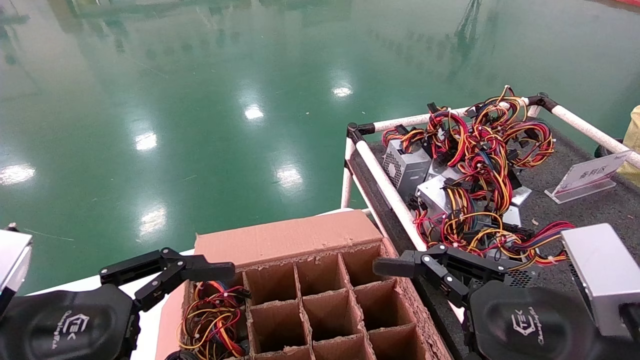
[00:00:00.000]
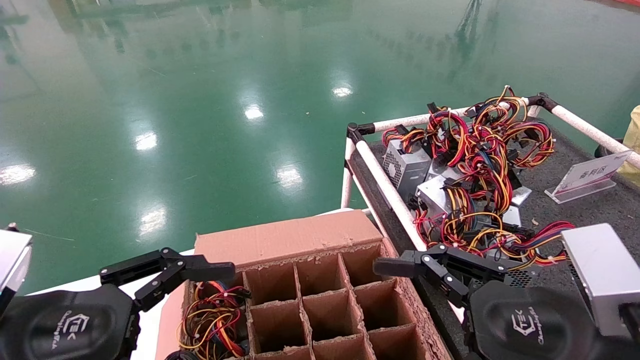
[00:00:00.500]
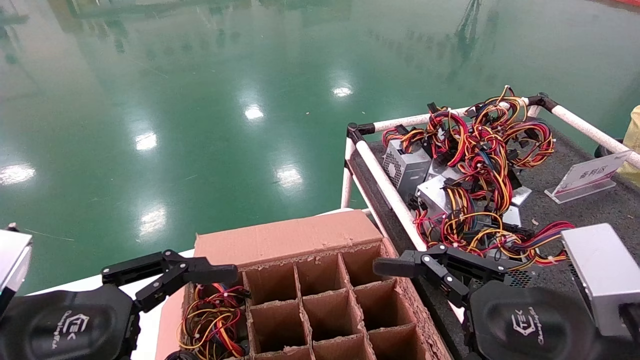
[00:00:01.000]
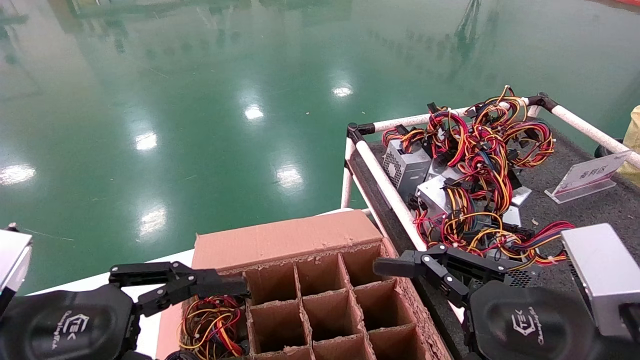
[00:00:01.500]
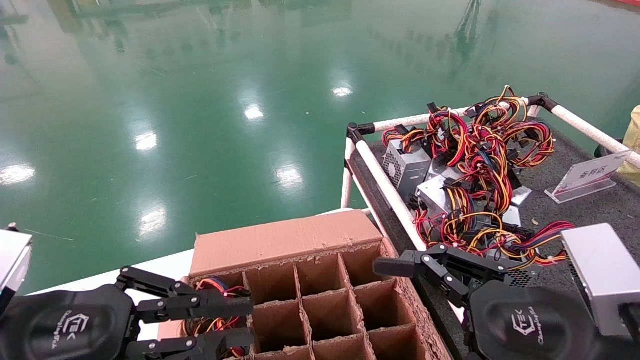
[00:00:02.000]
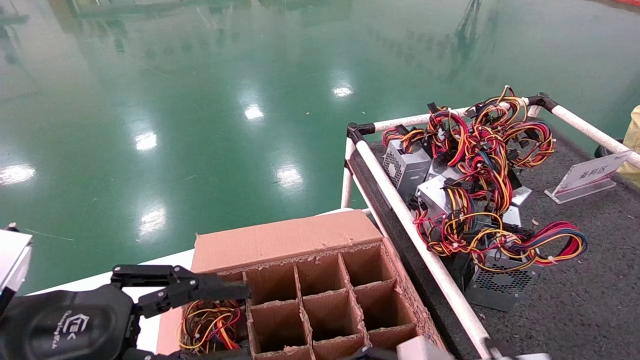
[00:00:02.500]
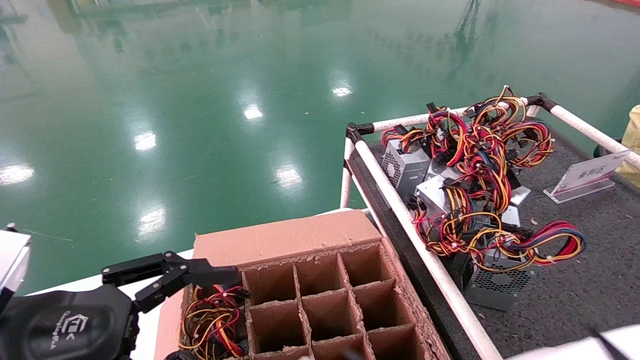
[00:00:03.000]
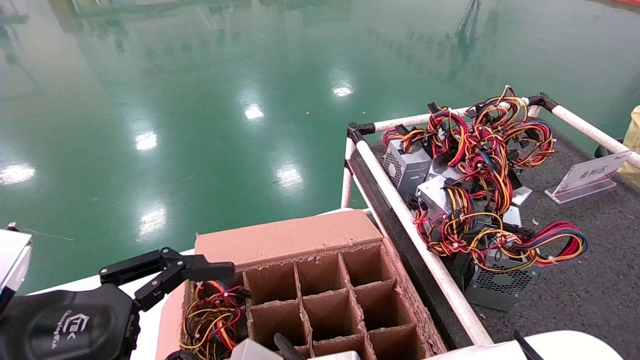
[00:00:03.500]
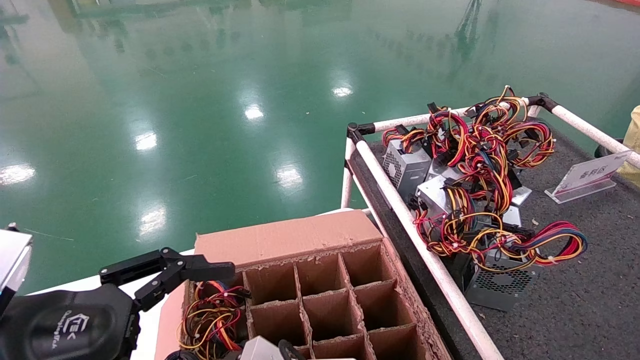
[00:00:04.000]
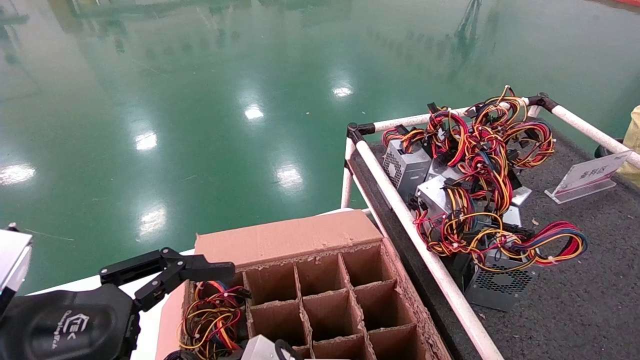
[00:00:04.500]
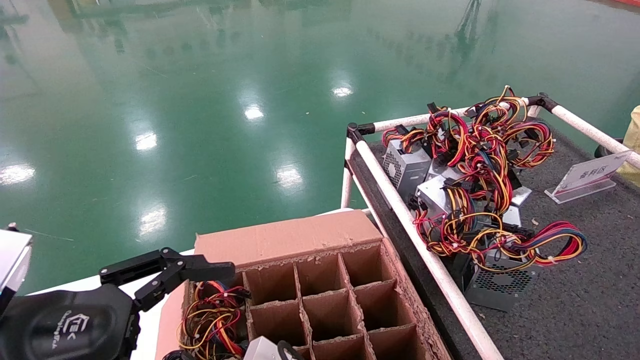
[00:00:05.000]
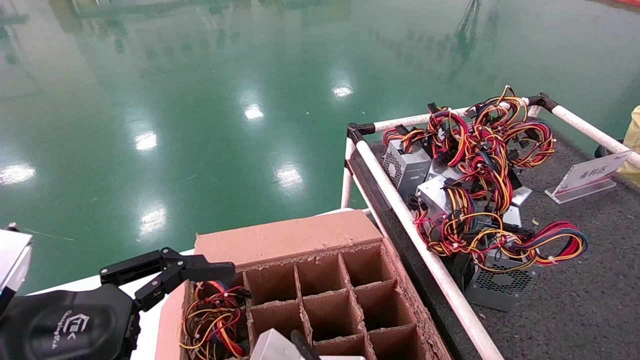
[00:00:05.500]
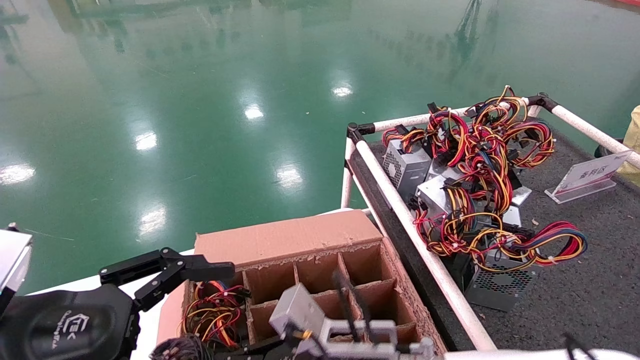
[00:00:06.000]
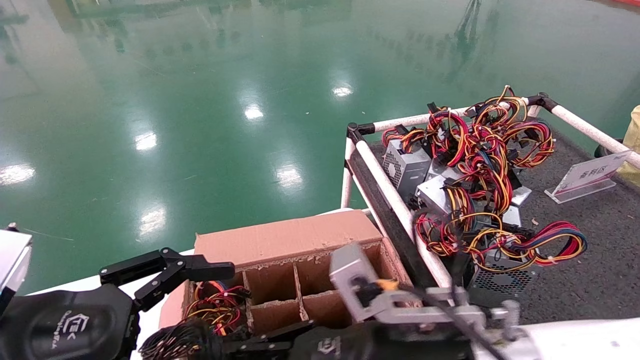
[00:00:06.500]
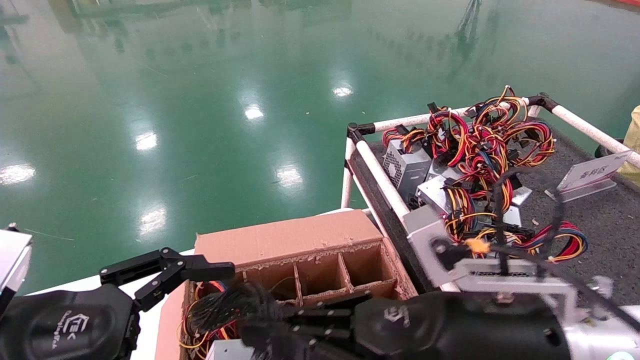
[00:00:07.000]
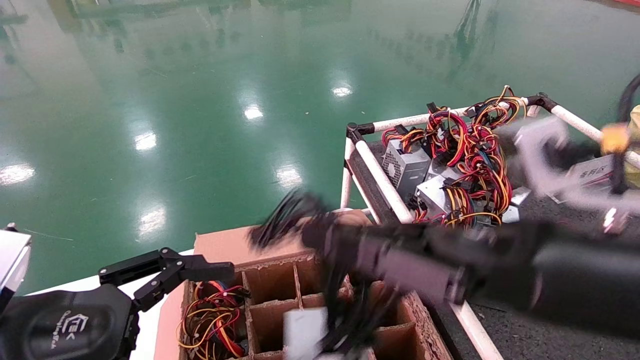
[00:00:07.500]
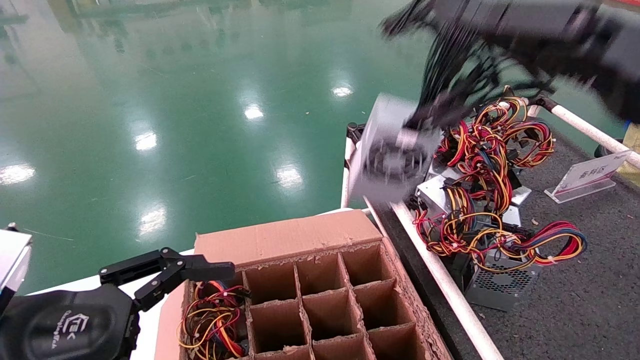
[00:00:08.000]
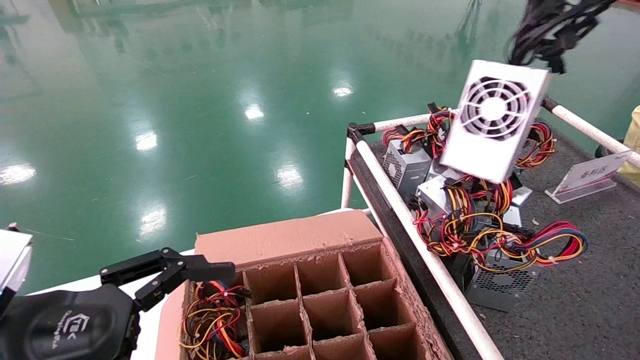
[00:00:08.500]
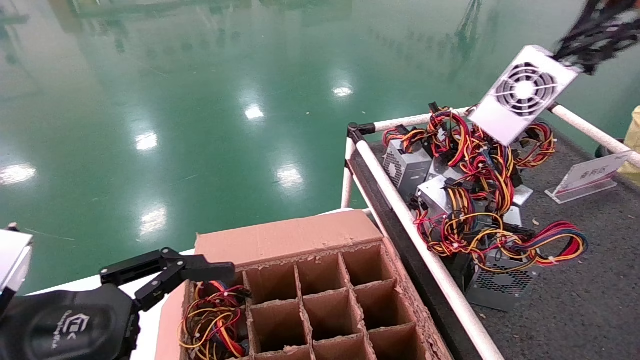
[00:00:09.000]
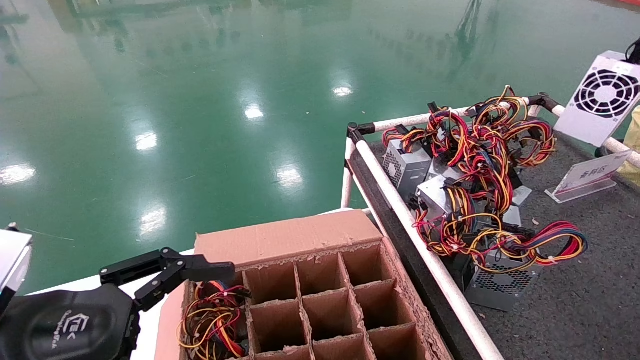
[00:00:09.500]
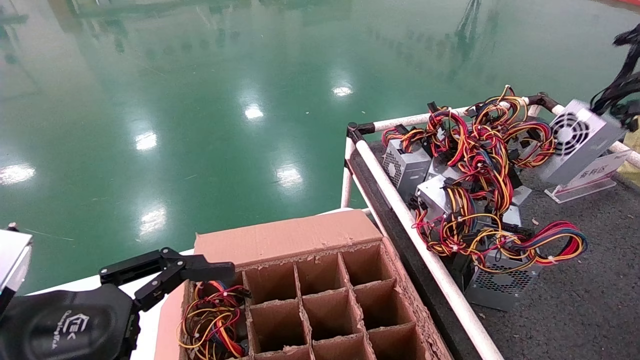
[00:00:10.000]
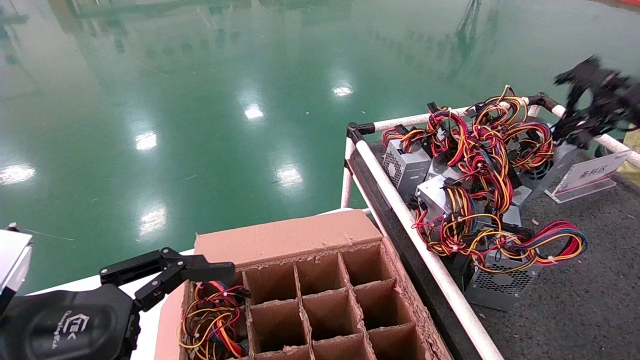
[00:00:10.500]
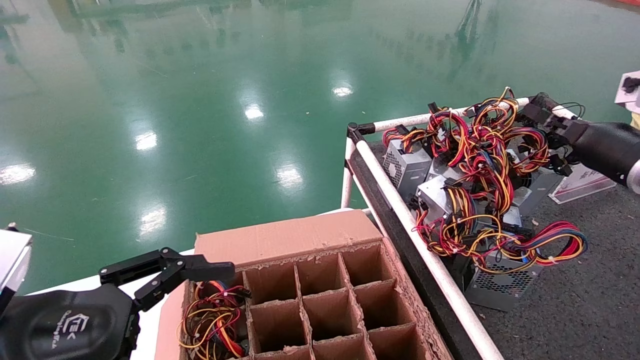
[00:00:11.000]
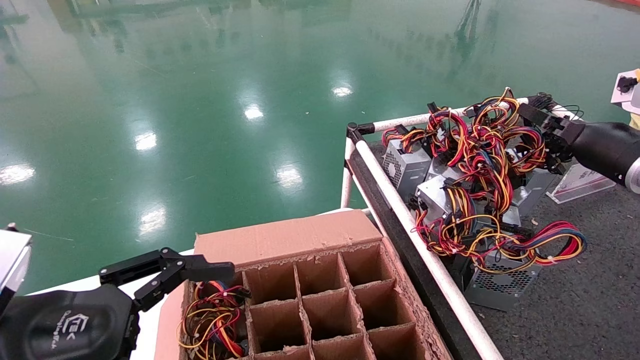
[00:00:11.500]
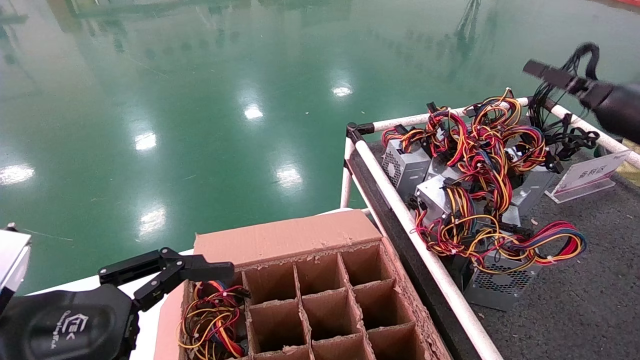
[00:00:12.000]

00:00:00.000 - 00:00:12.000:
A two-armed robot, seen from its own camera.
Step, 00:00:02.000 - 00:00:06.500: Grab and lift the power supply from the large box.
00:00:00.000 - 00:00:02.000: The left gripper closes its fingers.
00:00:02.000 - 00:00:04.000: The right gripper goes approximately 20 cm to the left and downward. Meanwhile the left gripper opens.
00:00:04.000 - 00:00:06.000: The right gripper ends up some 10 cm from where it was, and closes its fingers.
00:00:06.000 - 00:00:08.000: The right gripper is displaced upward, to the right and backward by some 20 cm, and closes its fingers.
00:00:08.000 - 00:00:10.000: The right gripper moves to the right and upward, some 40 cm.
00:00:10.000 - 00:00:12.000: The right gripper shifts approximately 20 cm downward and forward.

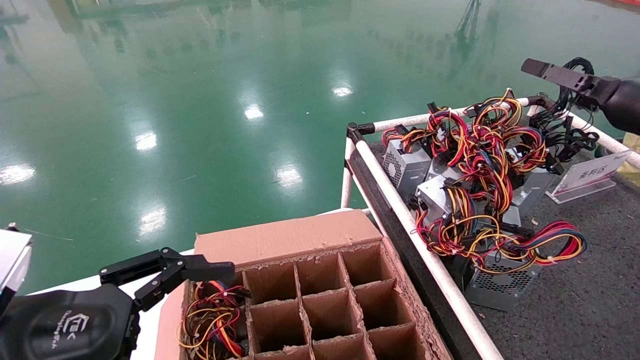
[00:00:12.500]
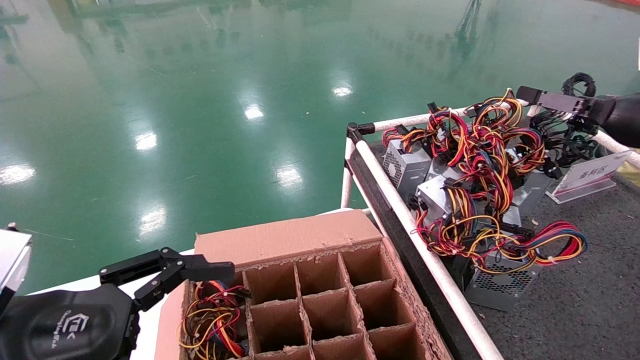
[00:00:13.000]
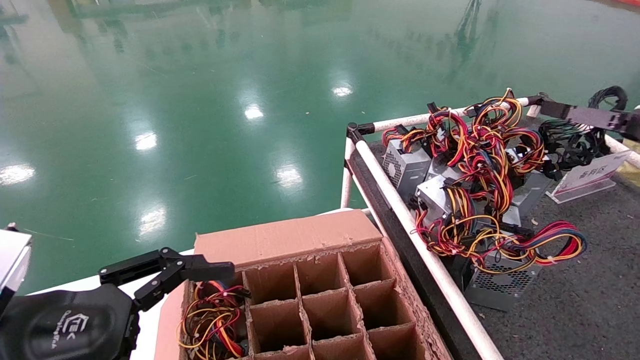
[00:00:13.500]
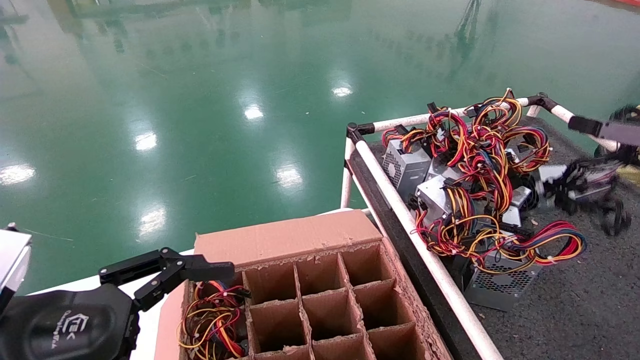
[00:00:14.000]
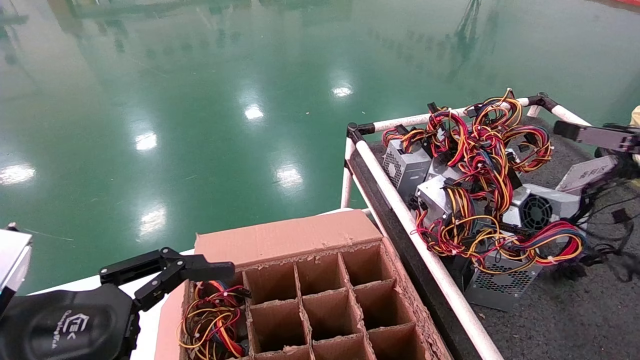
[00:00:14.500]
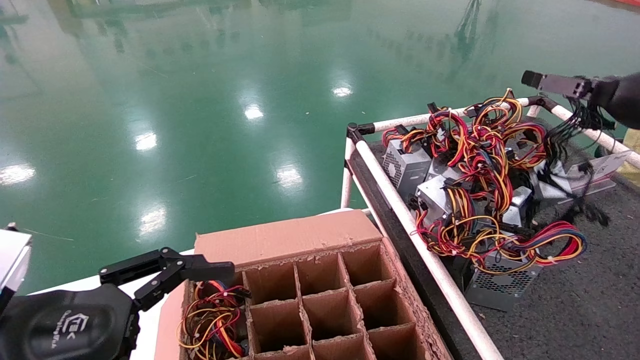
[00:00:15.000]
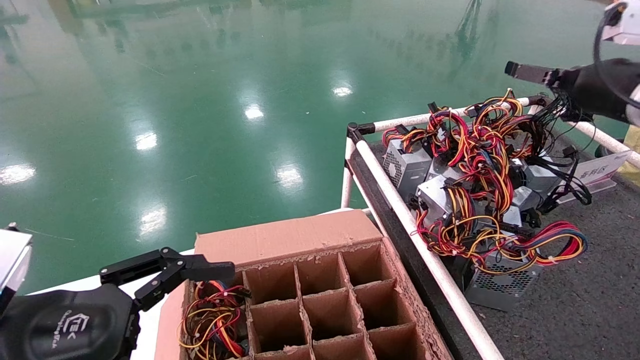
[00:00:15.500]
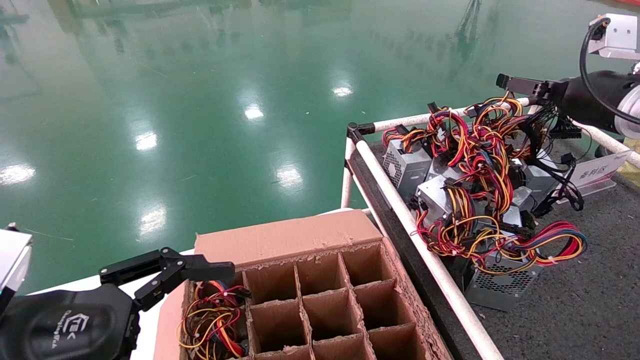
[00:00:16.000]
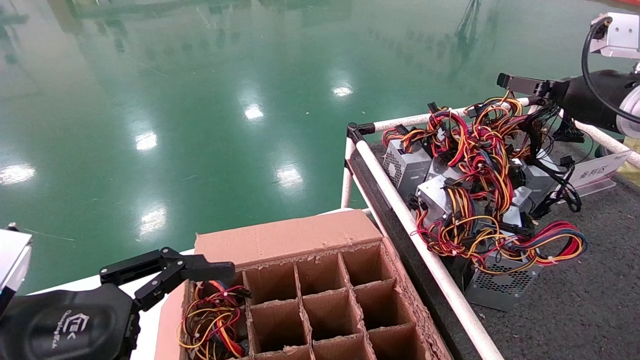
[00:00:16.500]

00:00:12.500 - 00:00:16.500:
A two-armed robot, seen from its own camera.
00:00:12.500 - 00:00:14.500: The right gripper travels backward by some 10 cm, and opens.
00:00:14.500 - 00:00:16.500: The right gripper shifts some 10 cm forward and to the left.
